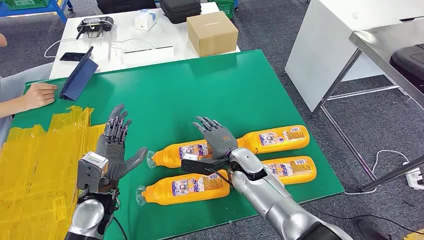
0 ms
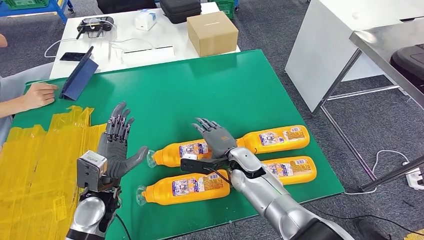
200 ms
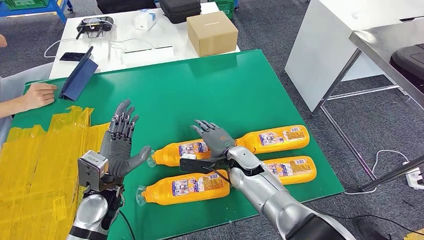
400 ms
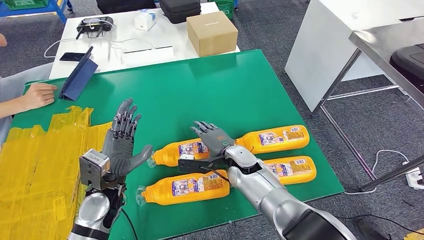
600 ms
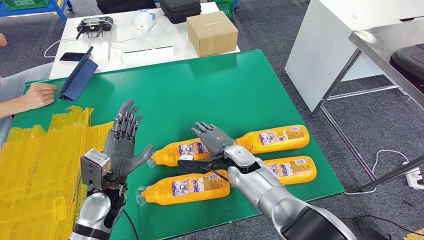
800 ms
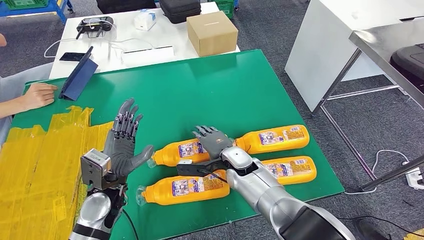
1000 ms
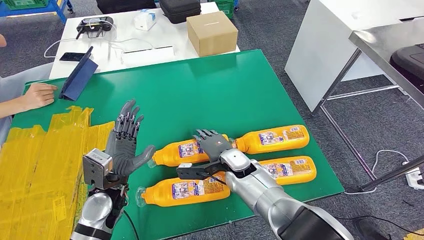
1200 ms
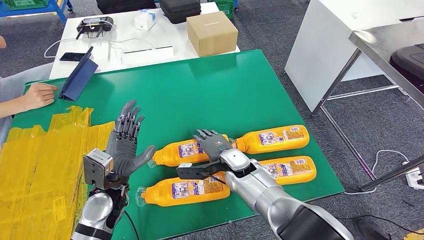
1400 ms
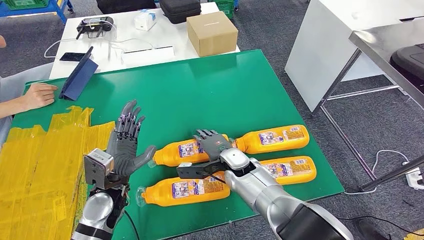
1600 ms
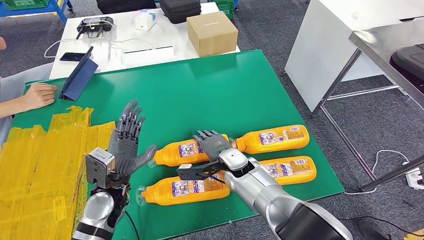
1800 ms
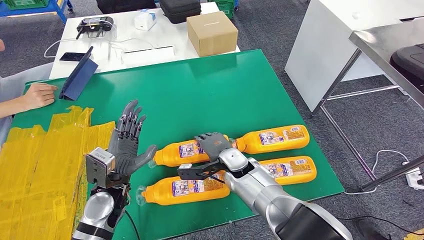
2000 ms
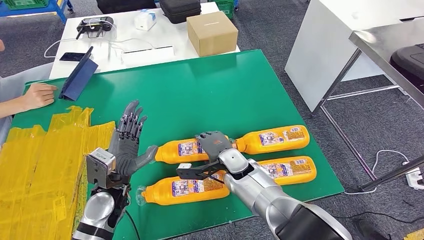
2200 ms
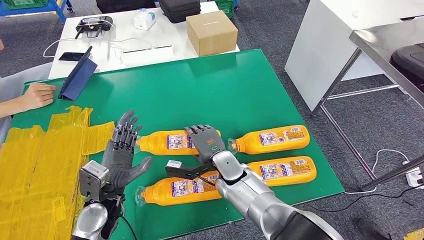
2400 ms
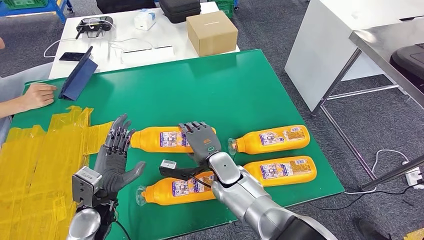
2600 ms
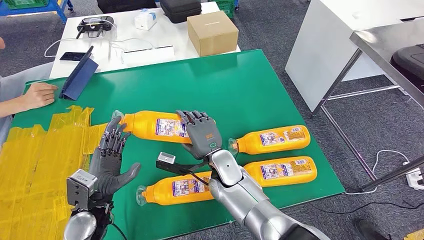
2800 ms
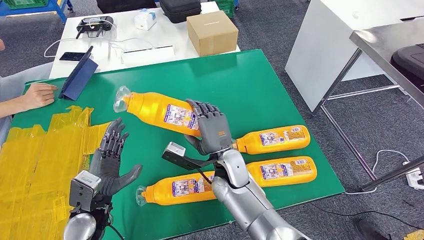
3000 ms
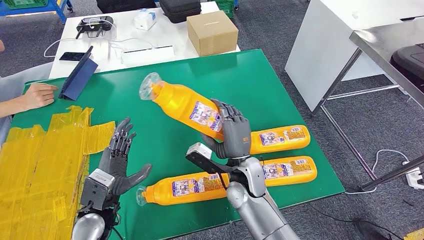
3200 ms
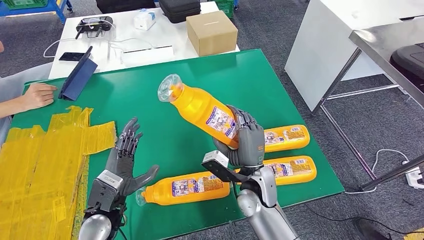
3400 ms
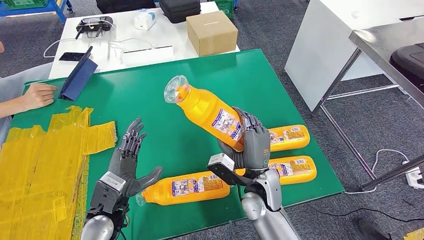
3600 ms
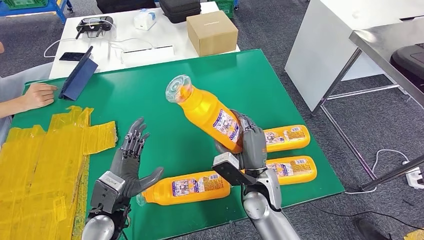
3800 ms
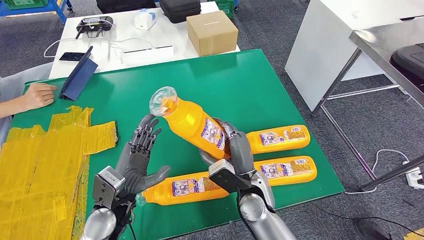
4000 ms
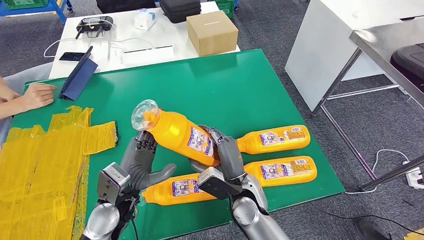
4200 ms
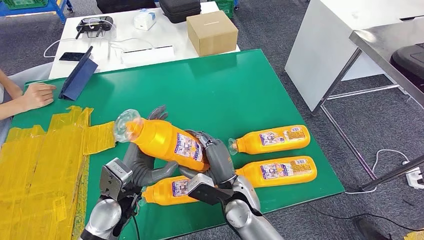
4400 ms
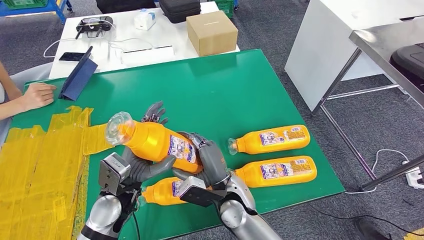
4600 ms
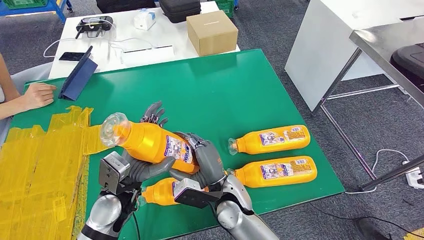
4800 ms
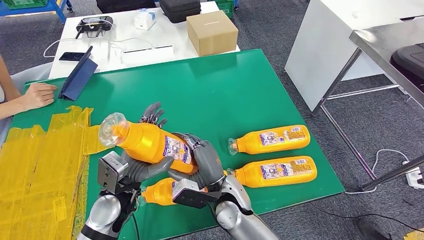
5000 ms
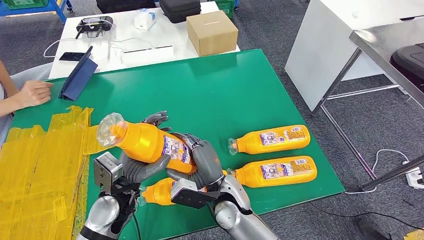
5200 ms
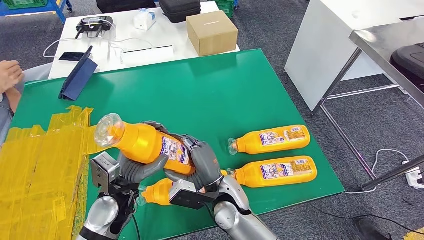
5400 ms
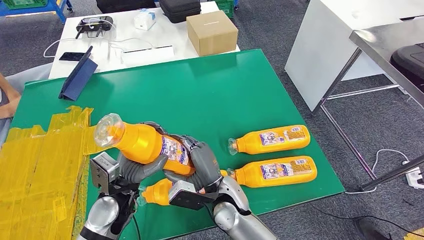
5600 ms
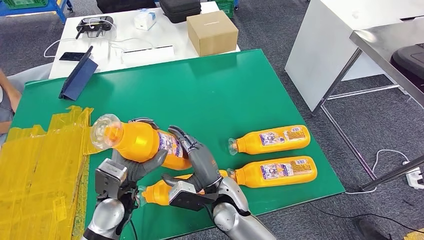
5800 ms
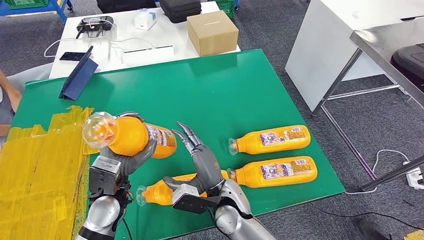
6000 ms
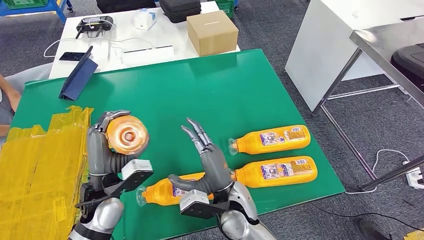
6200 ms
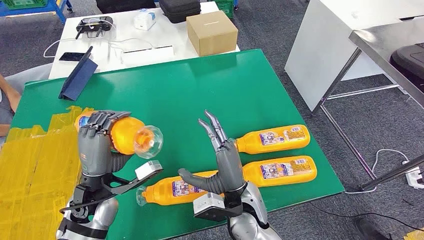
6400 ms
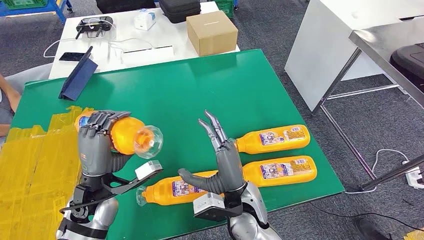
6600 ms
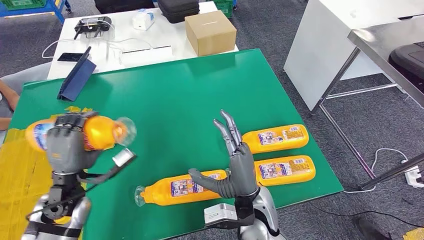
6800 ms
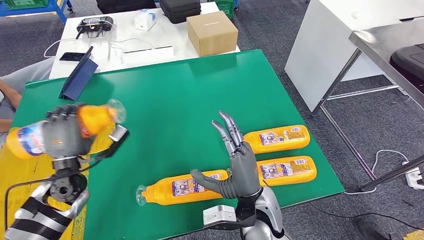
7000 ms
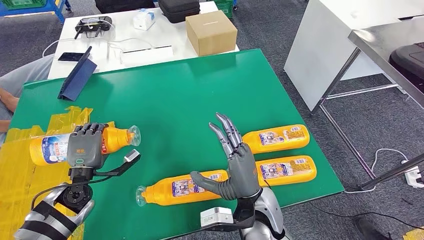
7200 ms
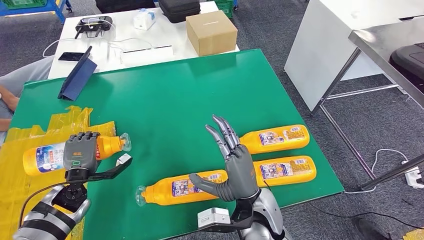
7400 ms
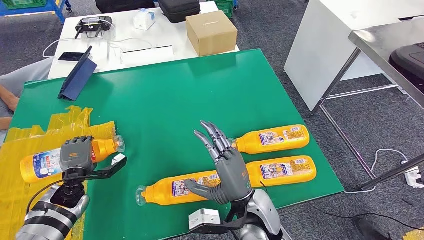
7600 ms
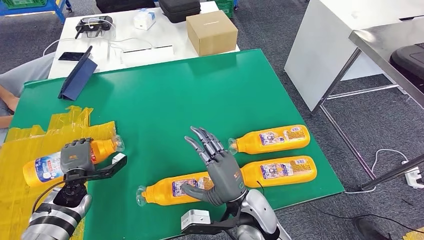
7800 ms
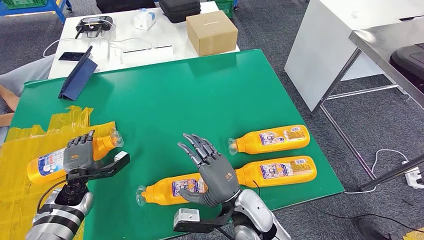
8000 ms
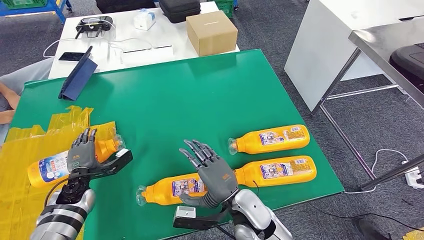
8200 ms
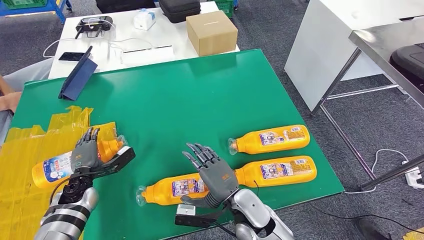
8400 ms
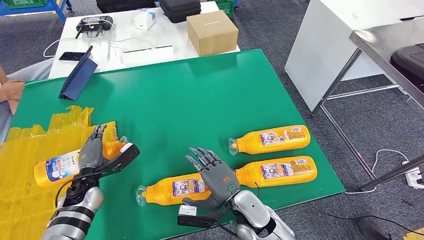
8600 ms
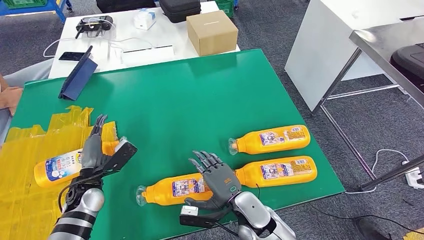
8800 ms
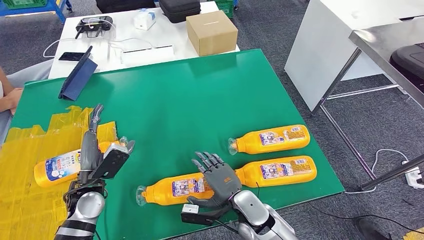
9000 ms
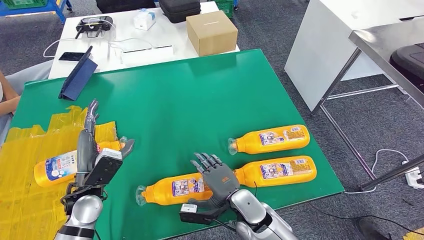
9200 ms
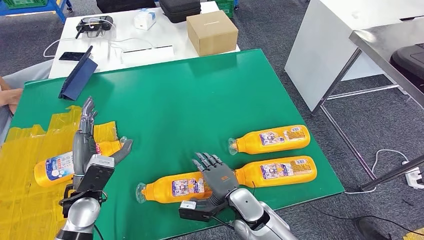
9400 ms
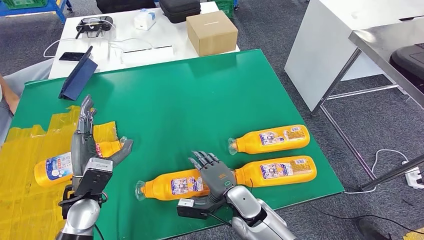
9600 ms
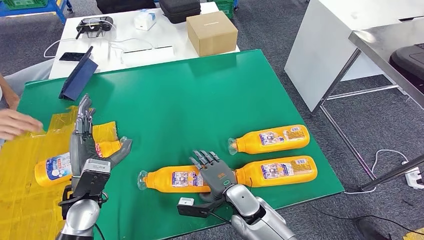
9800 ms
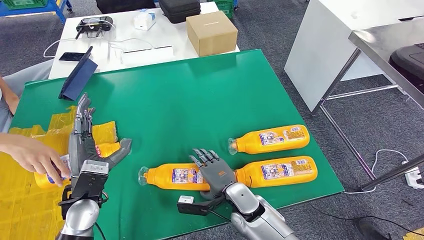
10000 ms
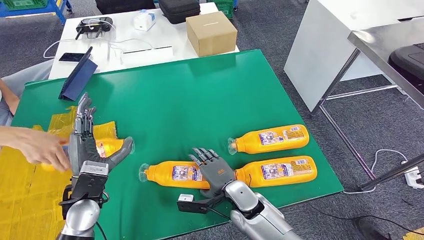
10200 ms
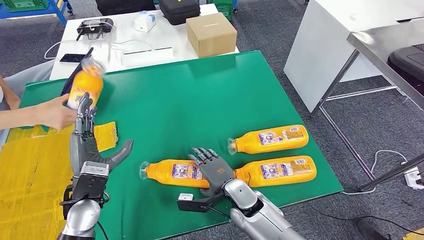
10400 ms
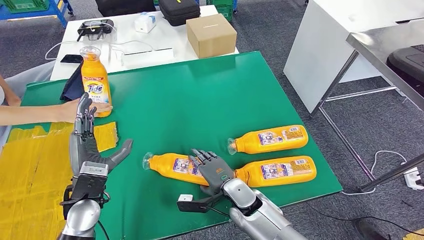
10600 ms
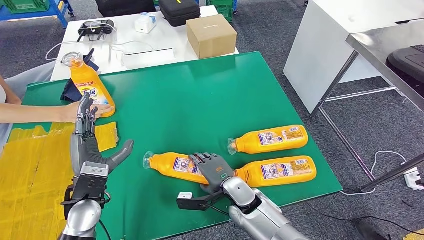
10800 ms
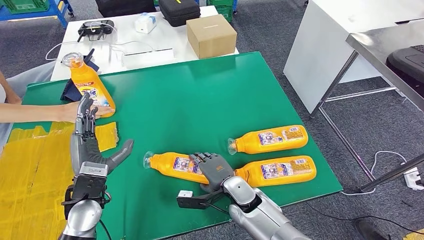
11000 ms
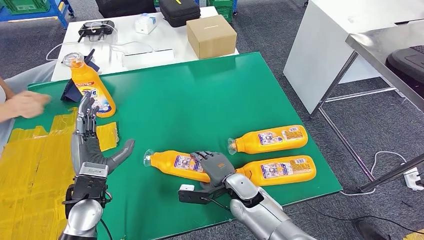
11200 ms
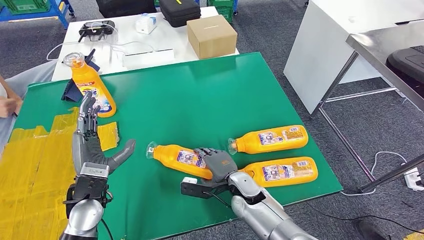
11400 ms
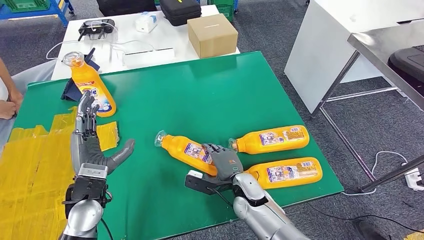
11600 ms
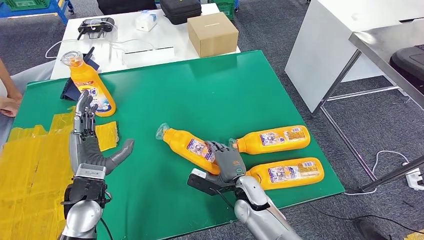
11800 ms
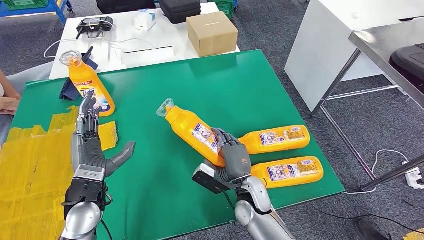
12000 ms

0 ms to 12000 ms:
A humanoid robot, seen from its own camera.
Step, 0 ms to 2800 ms: Take the bottle from the table.
Step, 5000 ms to 7000 ms: Flip the bottle to face forward.
1600 ms to 3000 ms: The left hand changes place by about 5 cm; the right hand shifts approximately 5 cm upward.
3000 ms to 4400 ms: The right hand is displaced backward by roughly 5 cm, and travels to the right and back again, approximately 10 cm each way. The left hand heads to the right, covering some 5 cm.
6000 ms to 7600 ms: The right hand shifts roughly 5 cm to the right. Meanwhile the left hand goes approximately 20 cm to the left and downward.
7600 ms to 9000 ms: The right hand is displaced downward by about 10 cm; the left hand is displaced to the right and upward by approximately 10 cm.

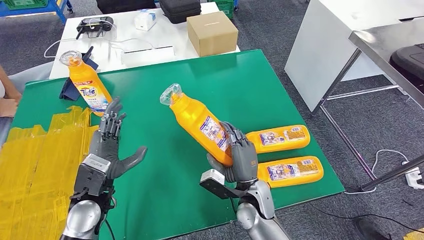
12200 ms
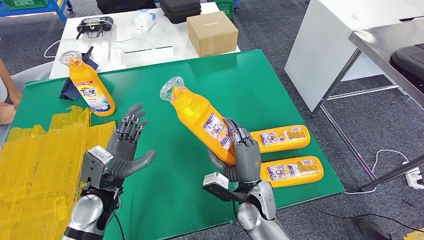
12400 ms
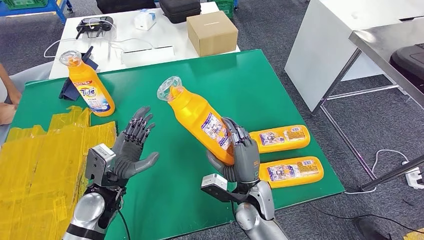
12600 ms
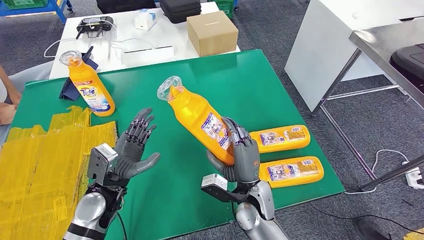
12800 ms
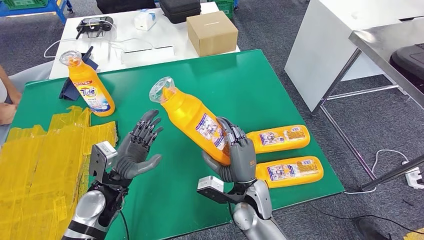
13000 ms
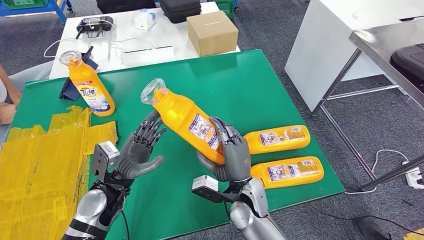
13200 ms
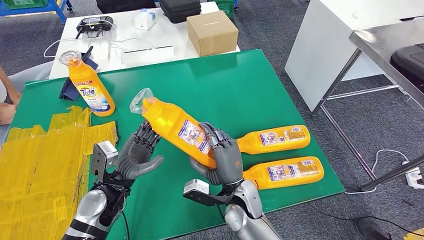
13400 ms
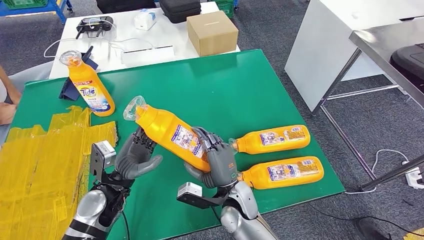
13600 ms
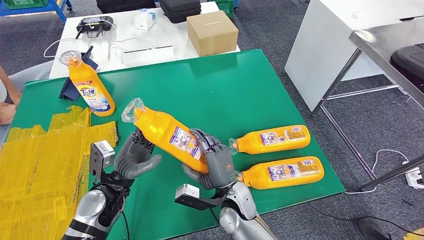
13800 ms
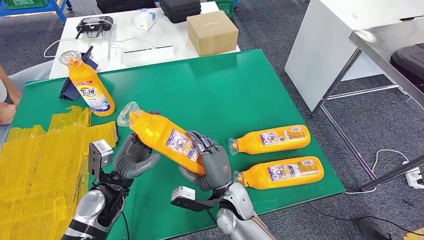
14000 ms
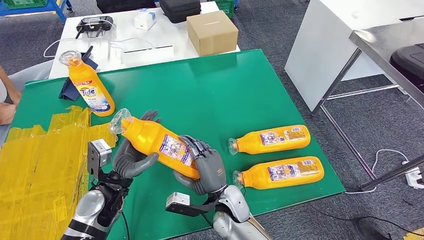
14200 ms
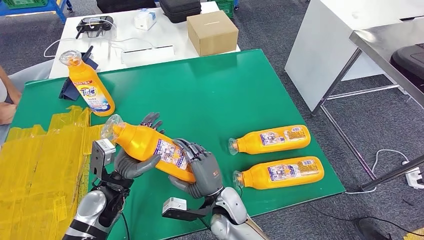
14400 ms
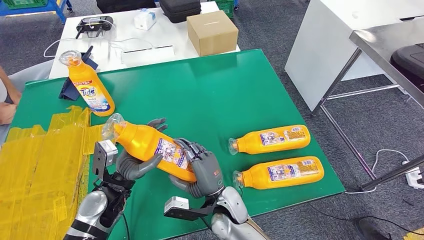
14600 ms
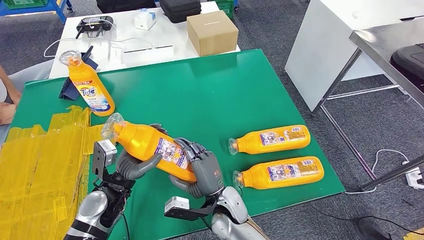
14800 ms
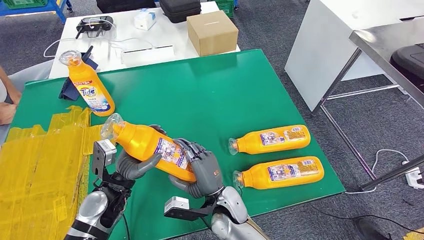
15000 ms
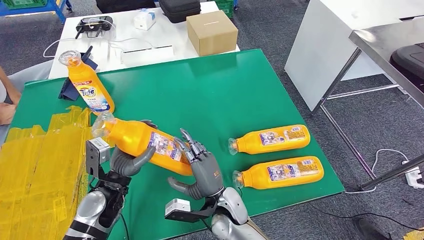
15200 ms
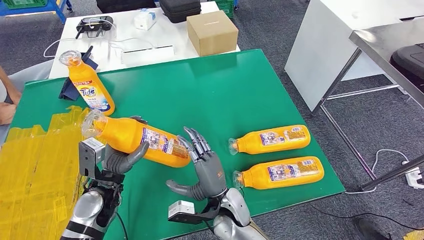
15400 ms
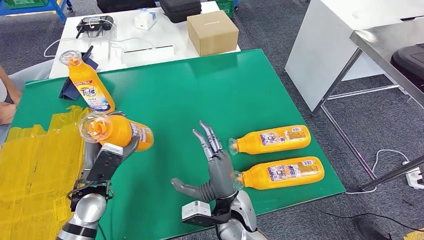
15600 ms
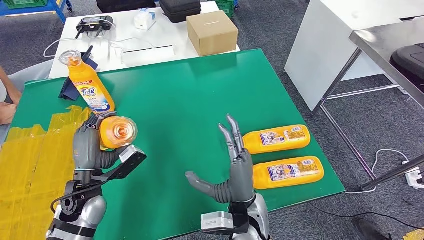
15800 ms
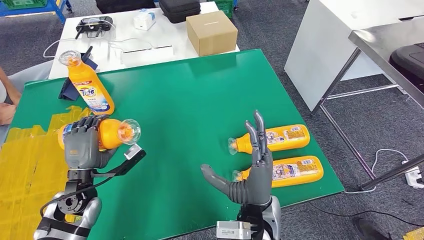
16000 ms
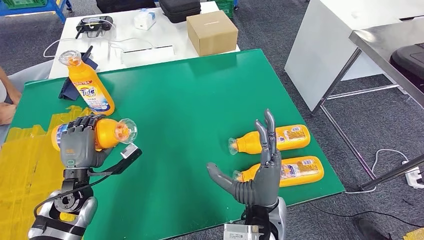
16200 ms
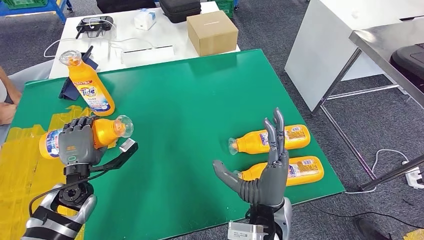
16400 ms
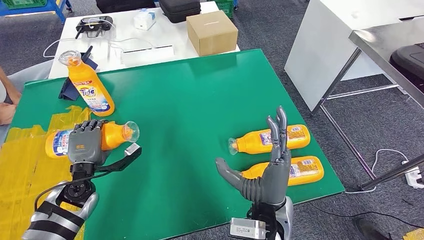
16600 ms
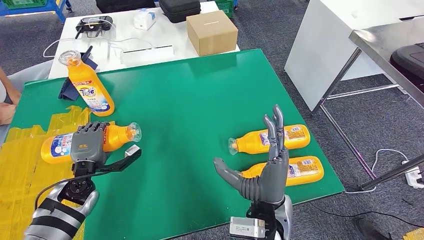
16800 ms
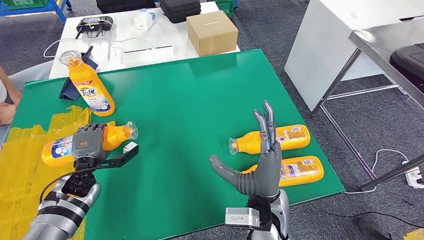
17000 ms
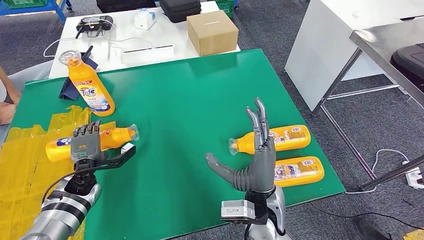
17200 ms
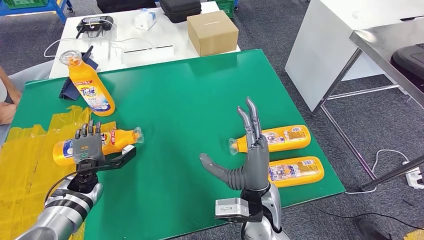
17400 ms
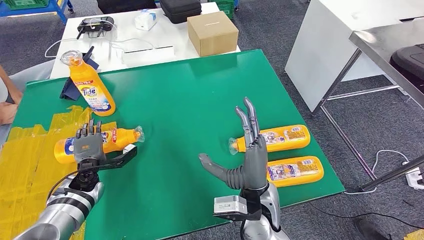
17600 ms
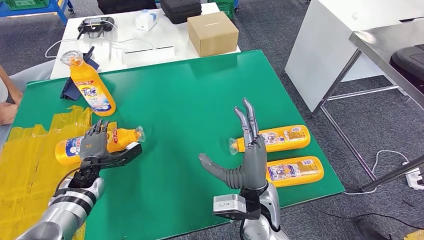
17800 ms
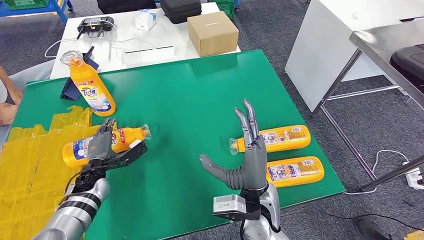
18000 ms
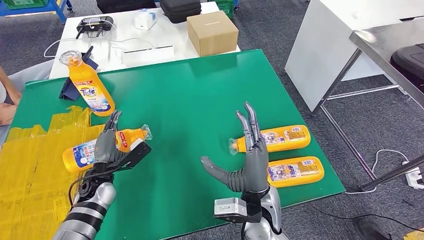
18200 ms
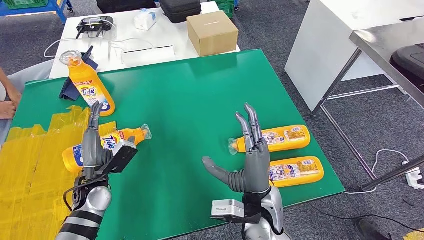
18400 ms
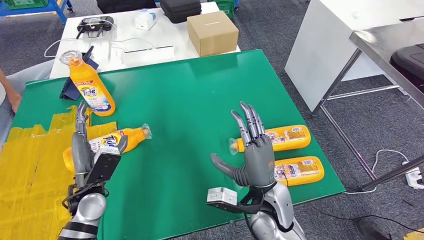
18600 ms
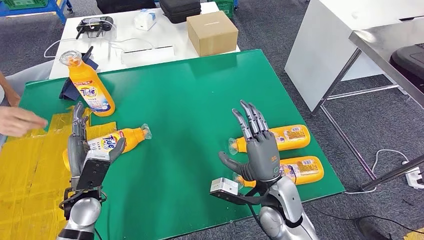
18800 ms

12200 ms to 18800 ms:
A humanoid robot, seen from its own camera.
Step, 13800 ms to 17000 ms: Flip the bottle to face forward.
13800 ms to 15400 ms: The hands stay close to where they were, moving slightly.
15400 ms to 17200 ms: The right hand shifts roughly 10 cm upward and to the right, while the left hand shifts about 15 cm to the left, forward and downward.
17200 ms to 18800 ms: The right hand moves approximately 5 cm; the left hand shifts roughly 10 cm backward, upward and to the right.
